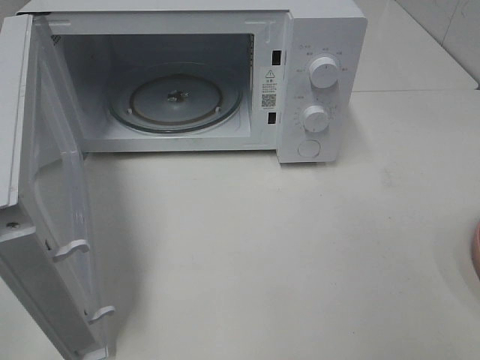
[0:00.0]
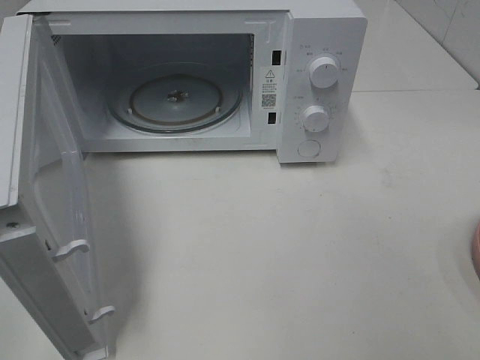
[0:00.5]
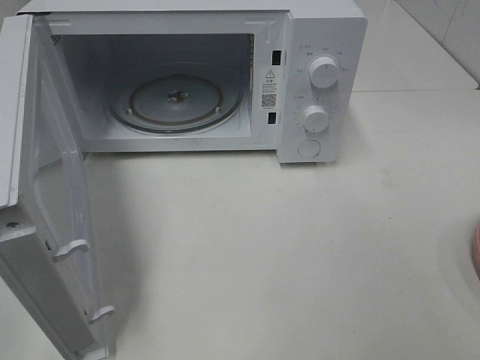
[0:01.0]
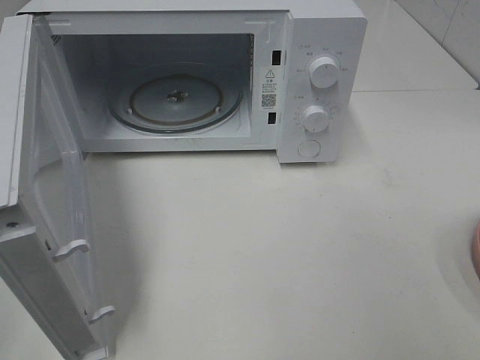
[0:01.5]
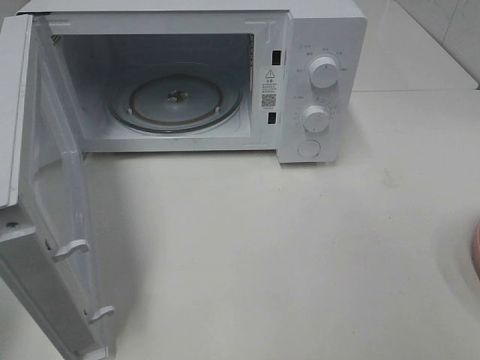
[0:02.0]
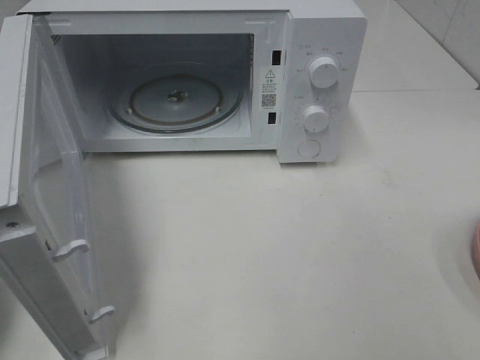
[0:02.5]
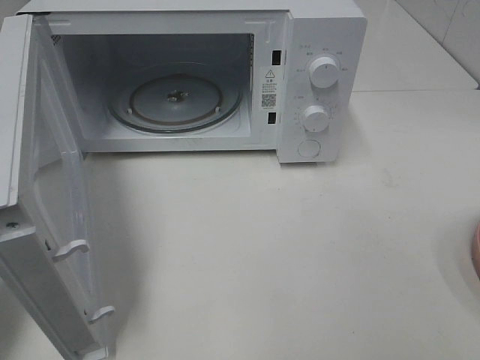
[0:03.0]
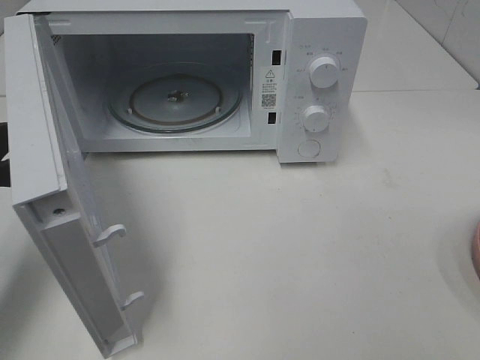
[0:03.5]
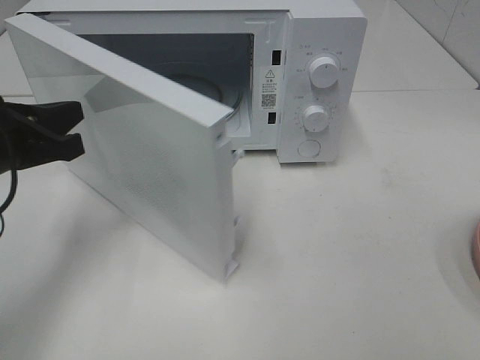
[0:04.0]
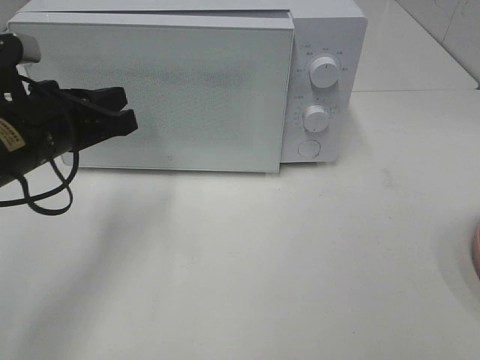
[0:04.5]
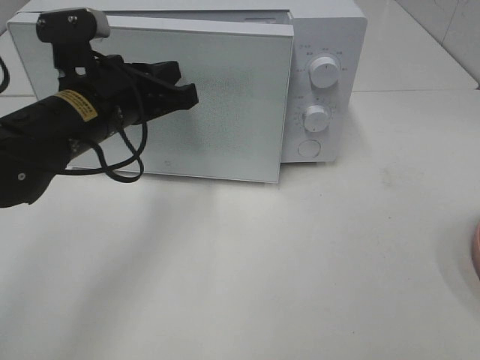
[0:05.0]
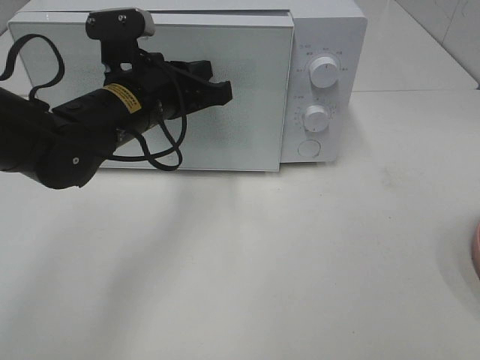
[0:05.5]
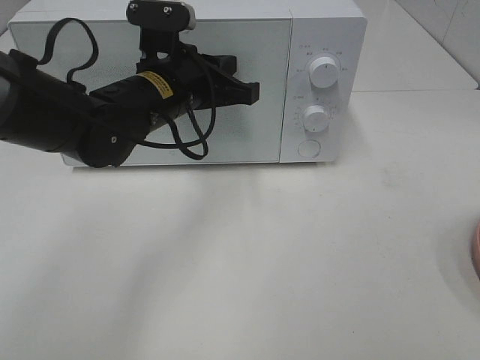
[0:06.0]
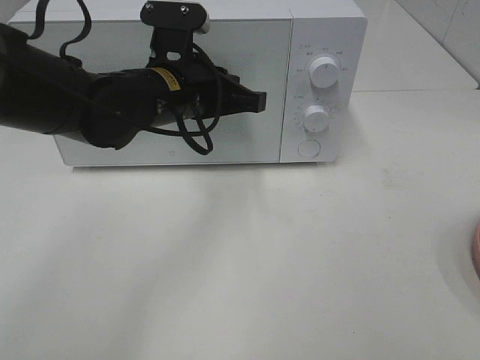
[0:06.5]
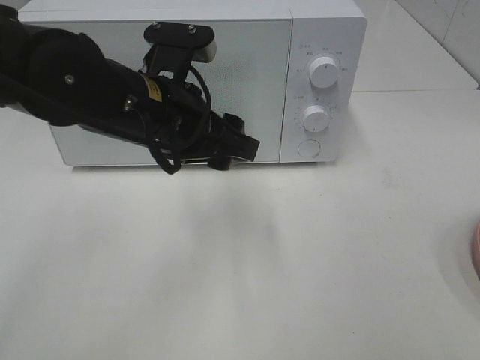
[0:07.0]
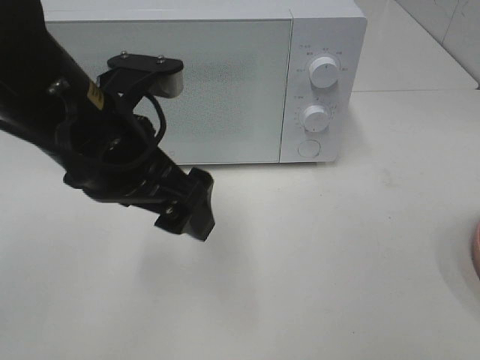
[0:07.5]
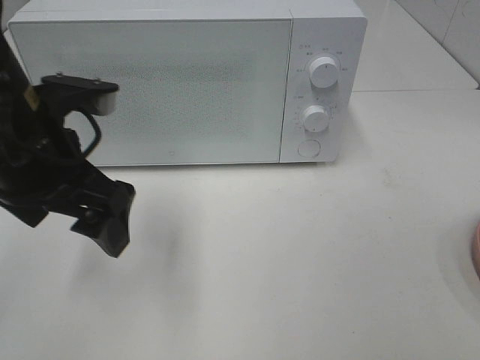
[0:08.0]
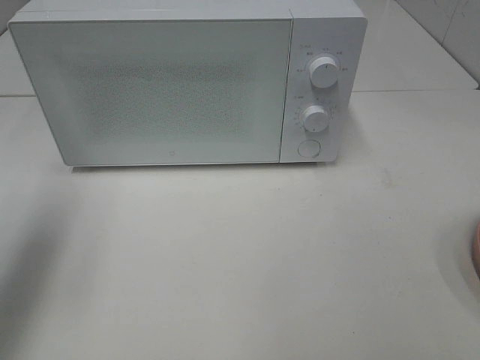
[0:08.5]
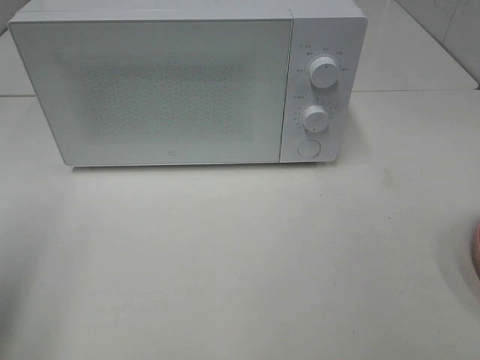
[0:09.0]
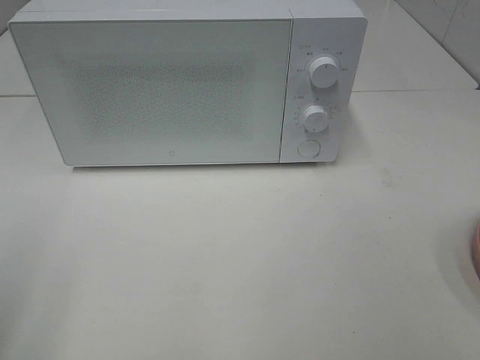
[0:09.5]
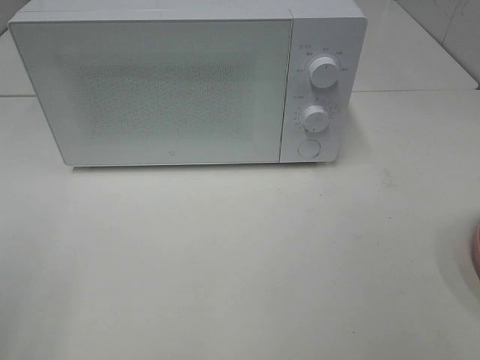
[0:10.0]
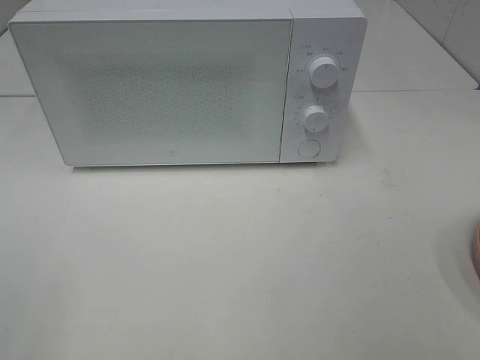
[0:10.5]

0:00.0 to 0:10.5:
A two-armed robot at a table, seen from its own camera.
Task of the whole recording: Heat the burger.
Step, 0:00.0 to 0:06.5: Left hand: close the microwave door.
0:02.0 to 0:04.0: The left gripper travels forward, downward and to the right by roughly 20 cm.
0:04.0 to 0:06.5: The left gripper heads to the right and forward, covering roughly 20 cm.
0:06.5 to 0:08.5: The left gripper goes approximately 30 cm to the left, backward and upward, and opens.
0:08.5 to 0:10.5: The left gripper heads backward, covering approximately 25 cm.

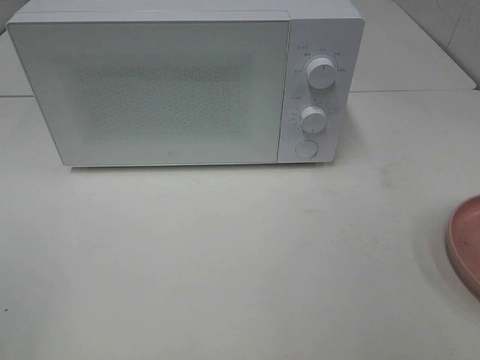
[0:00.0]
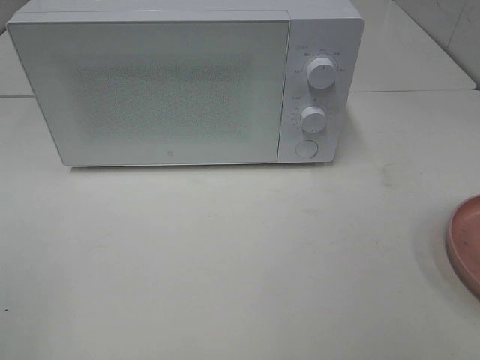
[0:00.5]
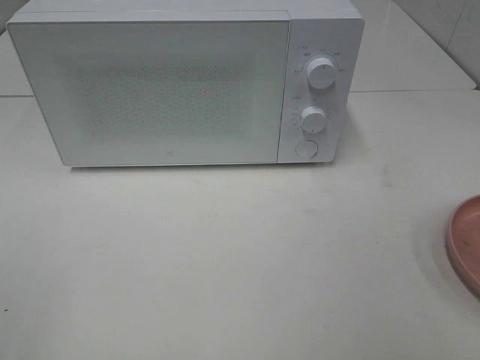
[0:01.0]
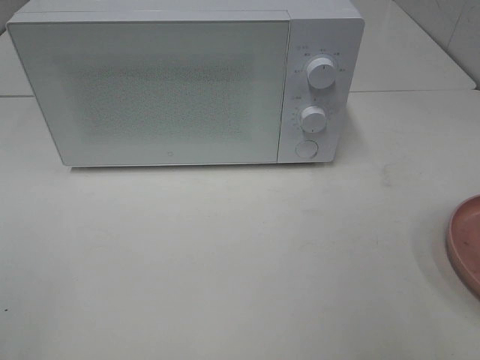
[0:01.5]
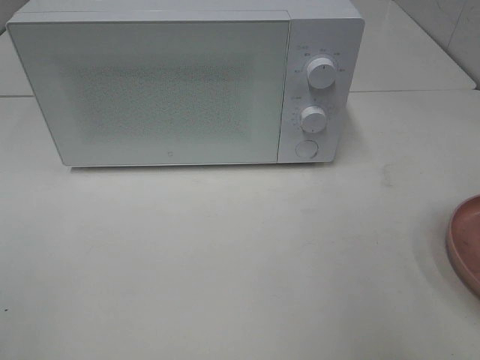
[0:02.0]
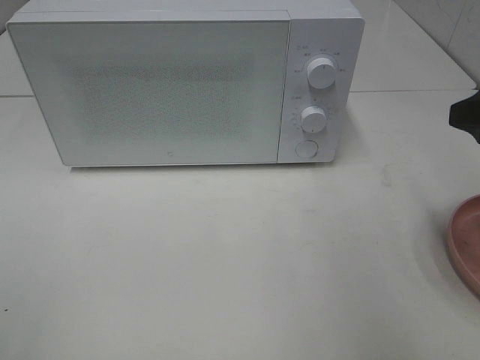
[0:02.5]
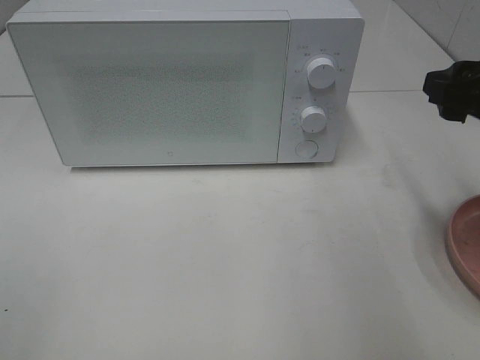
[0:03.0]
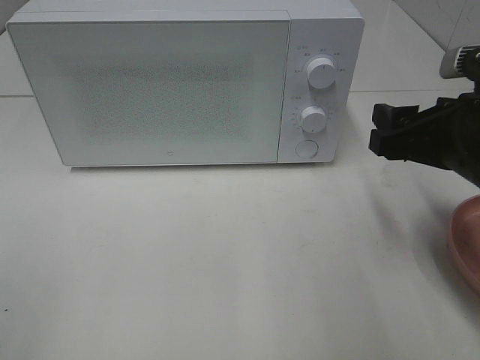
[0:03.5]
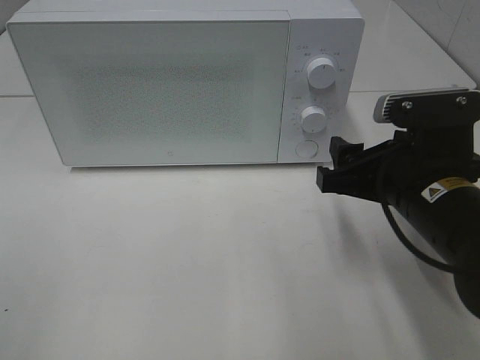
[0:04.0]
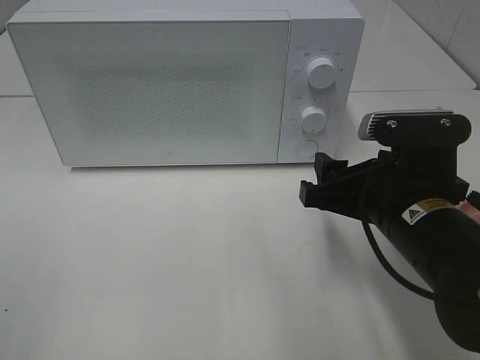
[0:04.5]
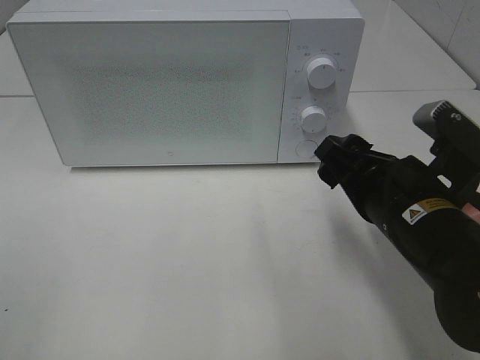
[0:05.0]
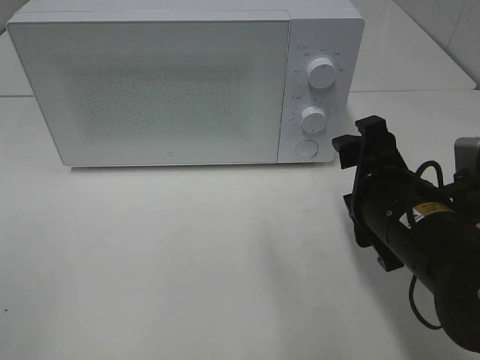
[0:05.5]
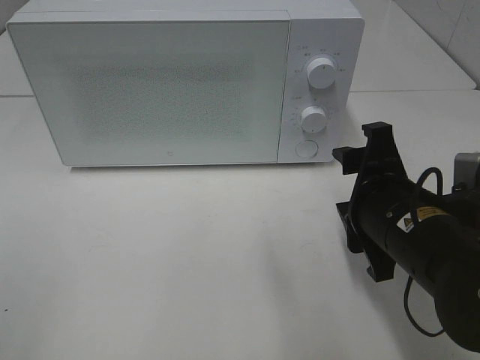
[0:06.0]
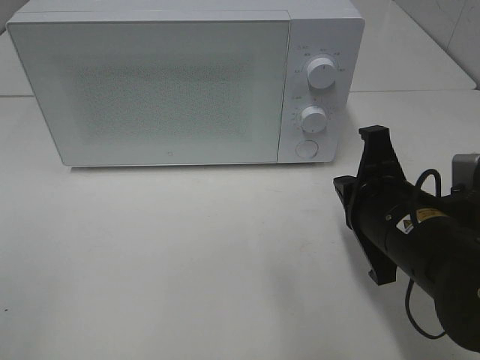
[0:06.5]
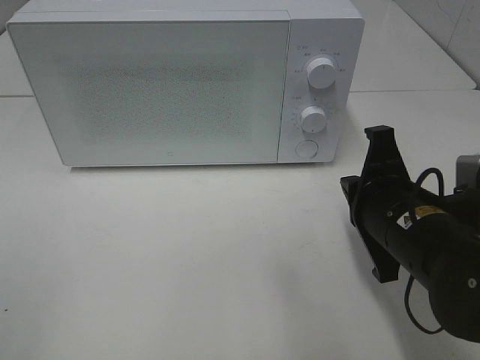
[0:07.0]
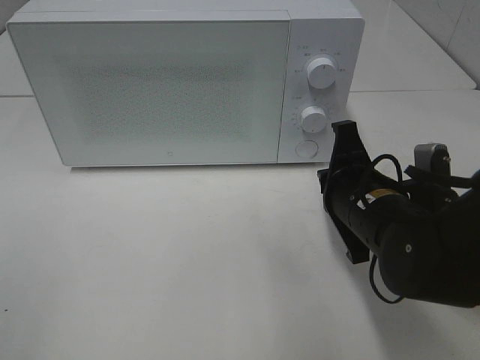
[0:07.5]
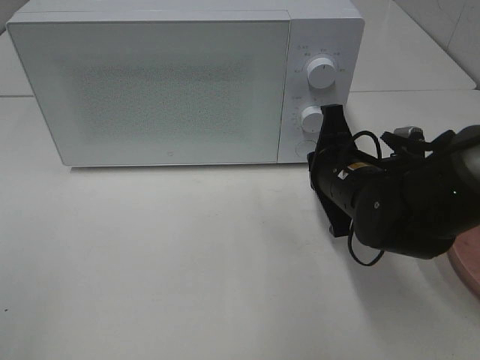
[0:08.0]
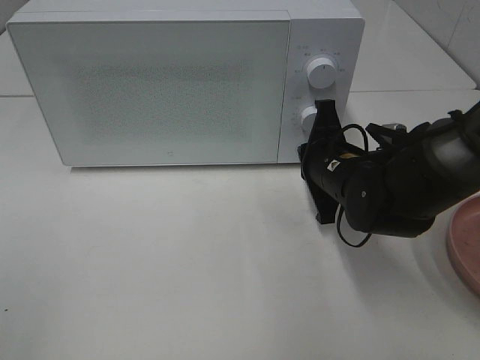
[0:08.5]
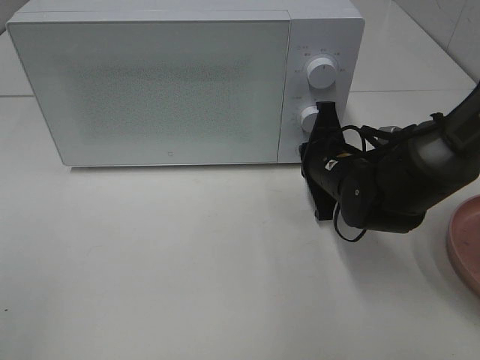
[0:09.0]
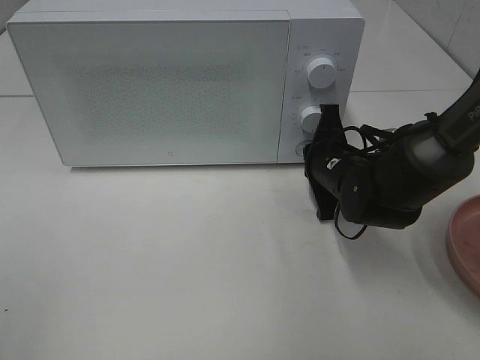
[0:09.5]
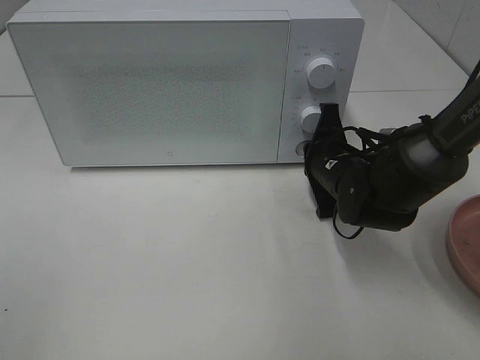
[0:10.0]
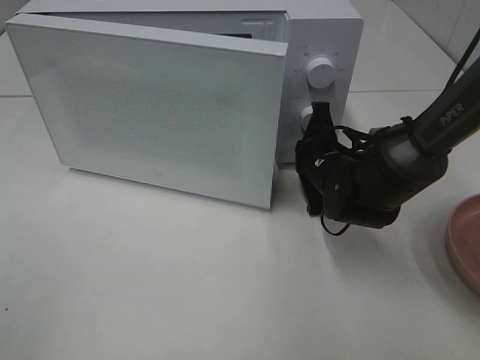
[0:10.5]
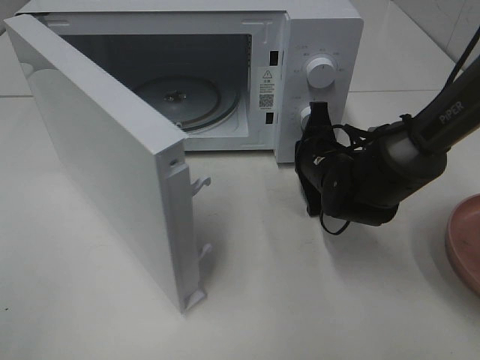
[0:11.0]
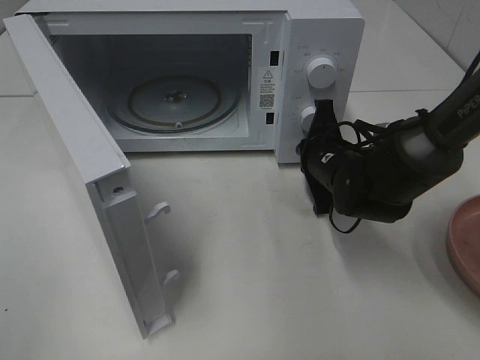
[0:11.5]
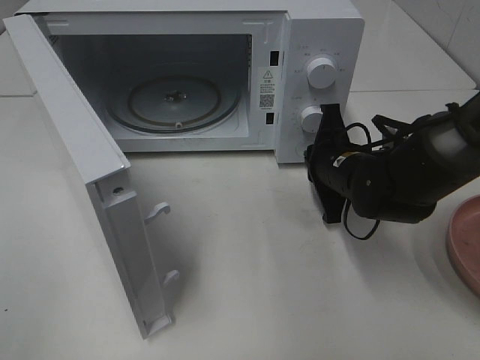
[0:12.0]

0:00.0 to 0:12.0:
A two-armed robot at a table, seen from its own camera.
Task of the whole recording: Heat the burger.
0:02.0 to 0:04.0: The right gripper is displaced downward, to the left and forward by roughly 15 cm.
0:06.0 to 0:08.0: The right gripper is displaced forward by approximately 10 cm, and closes its fingers.
0:08.0 to 0:10.0: The right gripper travels forward by approximately 5 cm.

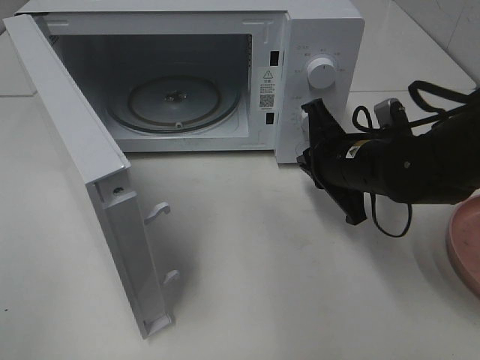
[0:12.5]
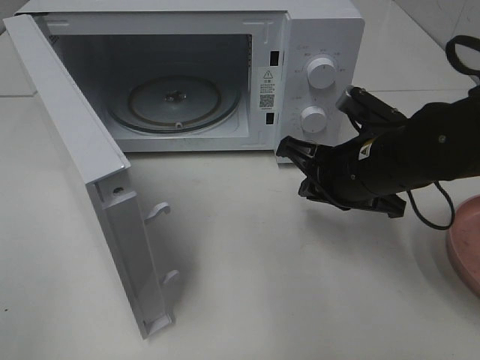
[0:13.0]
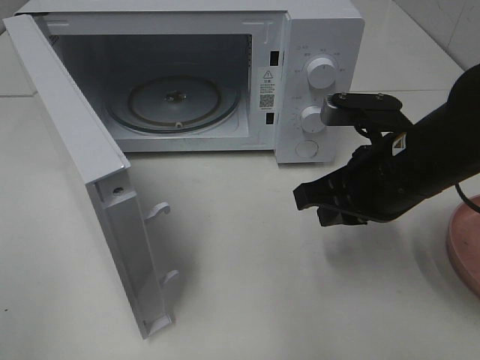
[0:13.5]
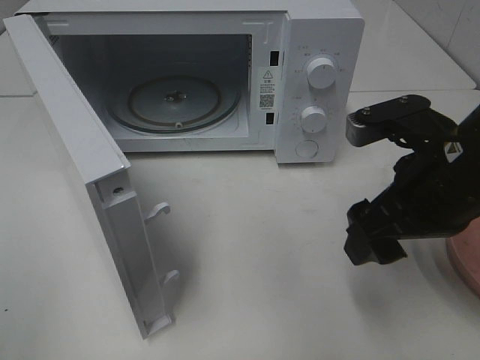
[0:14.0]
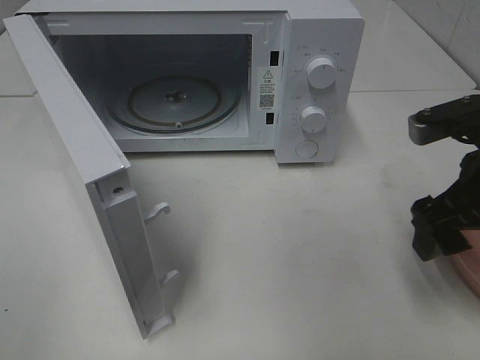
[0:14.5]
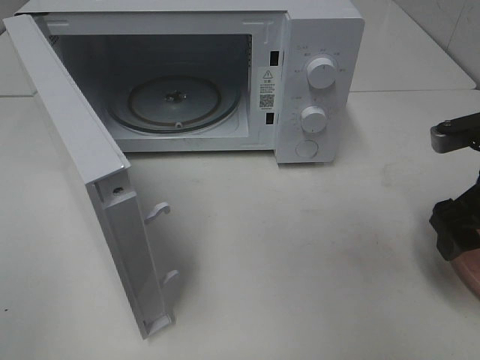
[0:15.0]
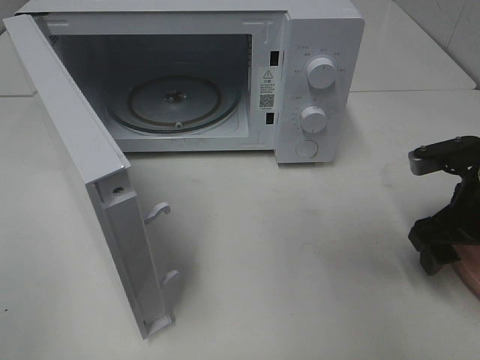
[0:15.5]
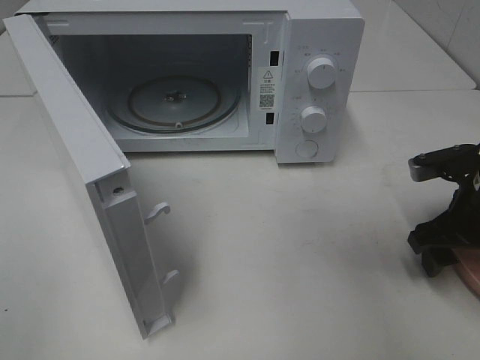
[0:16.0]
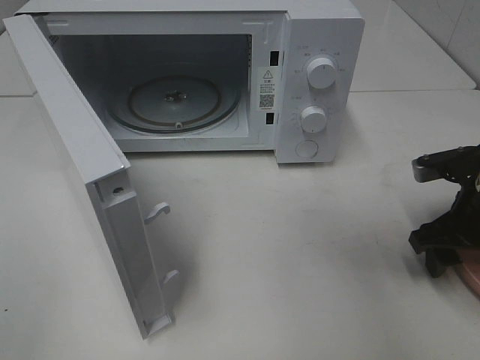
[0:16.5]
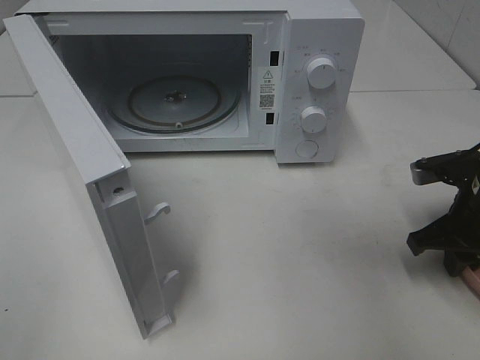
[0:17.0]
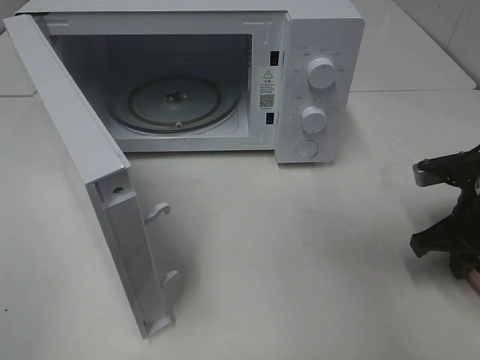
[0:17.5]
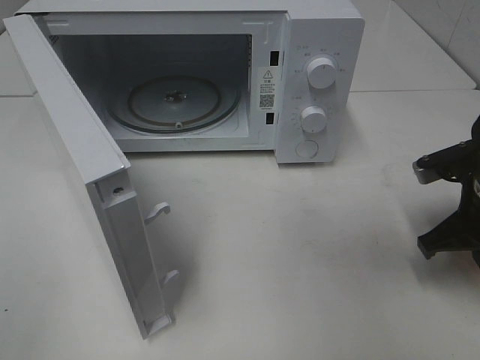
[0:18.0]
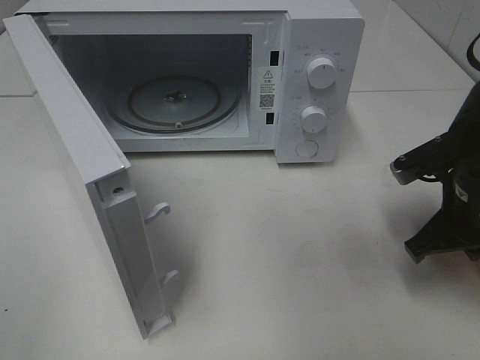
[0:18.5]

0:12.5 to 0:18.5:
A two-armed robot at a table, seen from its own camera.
Task of the whole recording: Heat the burger.
Step, 0:12.5 to 0:17.5: Right hand: grab the plate with the hamburger.
0:12.5 to 0:14.5: The right gripper shifts approximately 15 cm to the right, backward and upward, and opens.
0:14.5 to 0:16.5: The right gripper is displaced downward by approximately 10 cm.
0:16.5 to 0:18.5: The right gripper shifts by about 5 cm, and closes its fingers.
